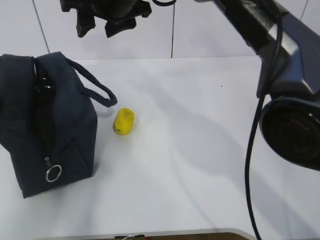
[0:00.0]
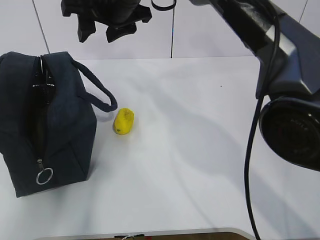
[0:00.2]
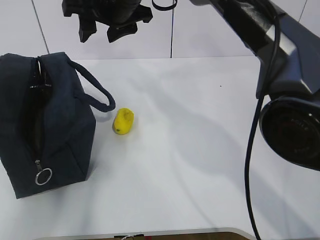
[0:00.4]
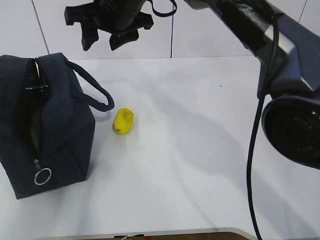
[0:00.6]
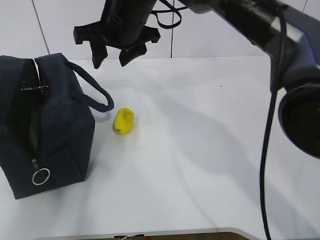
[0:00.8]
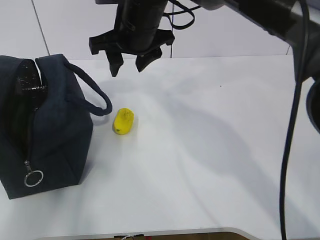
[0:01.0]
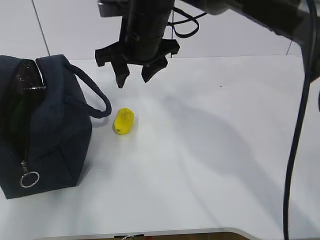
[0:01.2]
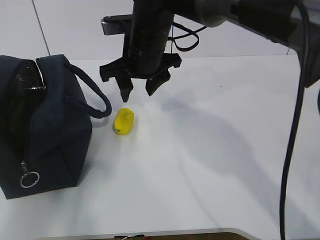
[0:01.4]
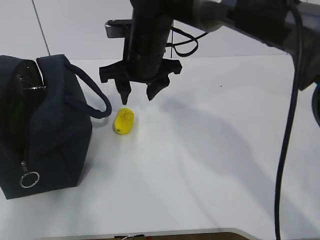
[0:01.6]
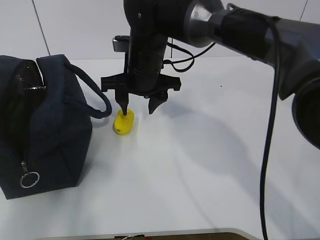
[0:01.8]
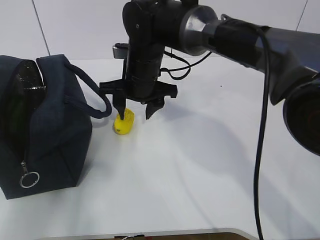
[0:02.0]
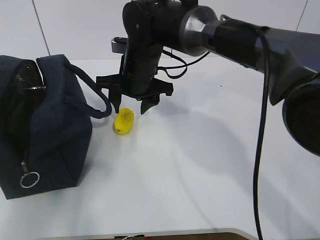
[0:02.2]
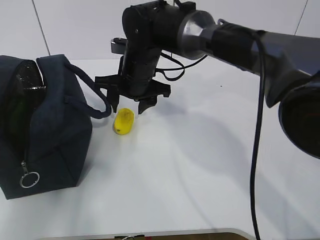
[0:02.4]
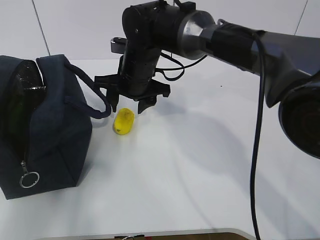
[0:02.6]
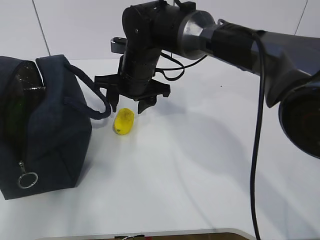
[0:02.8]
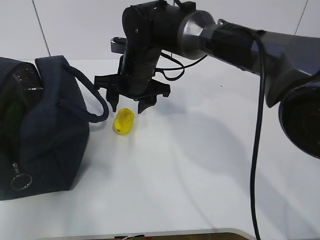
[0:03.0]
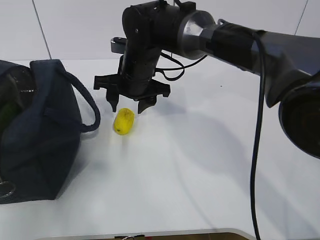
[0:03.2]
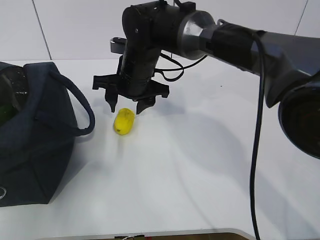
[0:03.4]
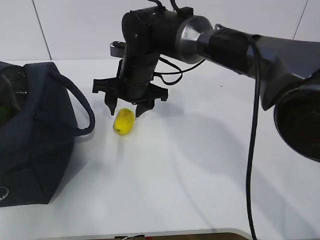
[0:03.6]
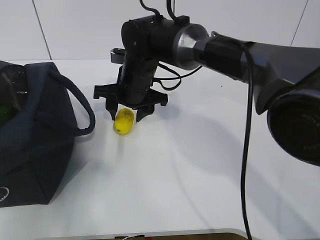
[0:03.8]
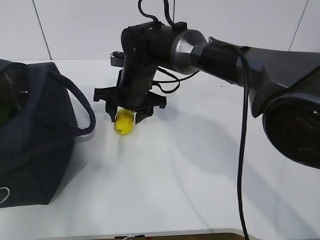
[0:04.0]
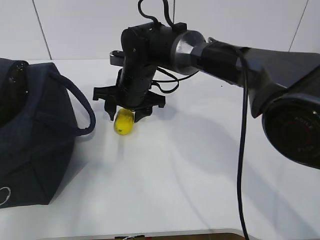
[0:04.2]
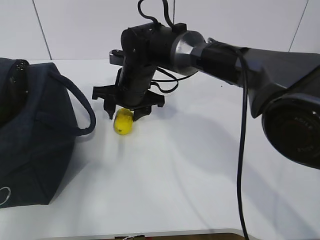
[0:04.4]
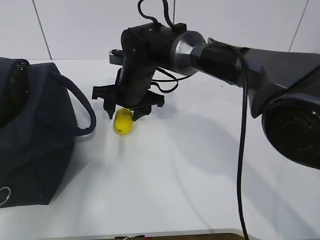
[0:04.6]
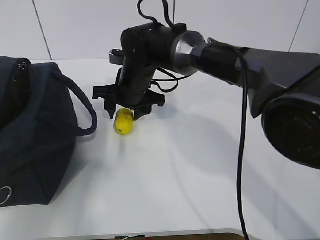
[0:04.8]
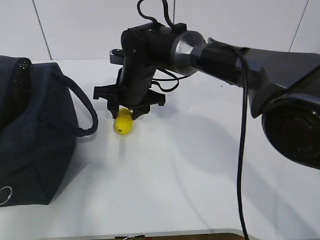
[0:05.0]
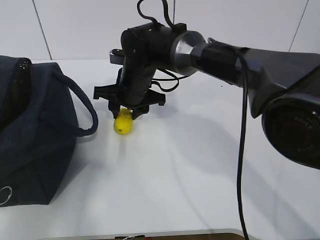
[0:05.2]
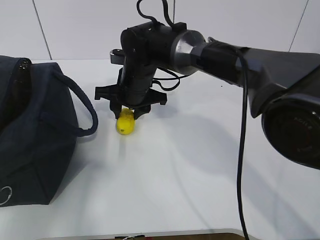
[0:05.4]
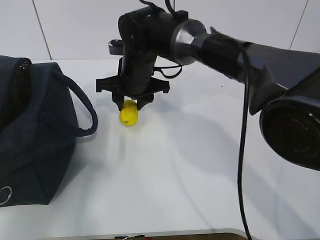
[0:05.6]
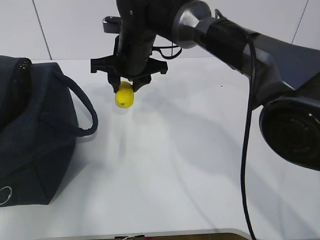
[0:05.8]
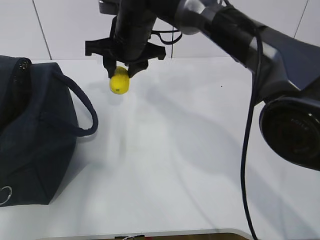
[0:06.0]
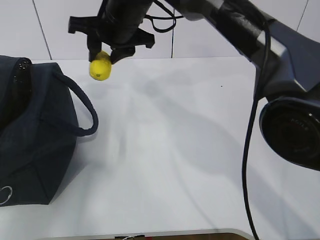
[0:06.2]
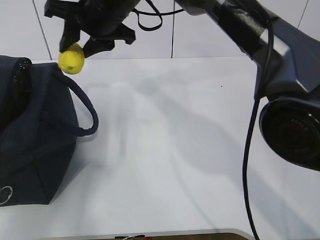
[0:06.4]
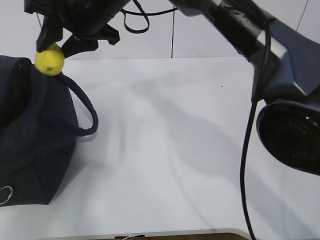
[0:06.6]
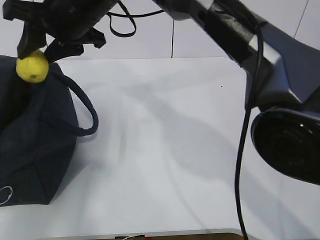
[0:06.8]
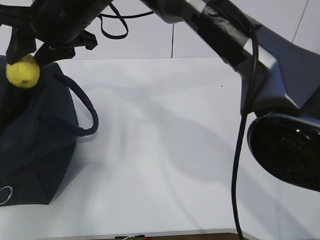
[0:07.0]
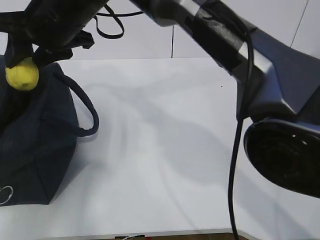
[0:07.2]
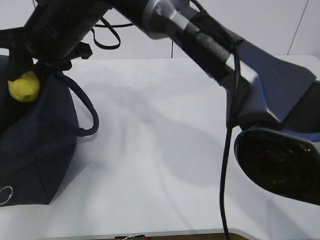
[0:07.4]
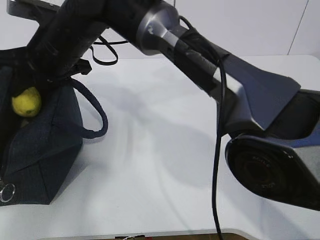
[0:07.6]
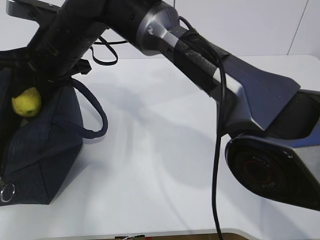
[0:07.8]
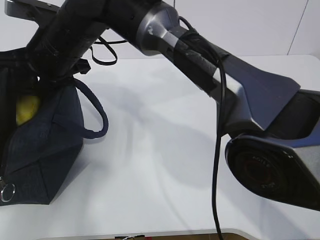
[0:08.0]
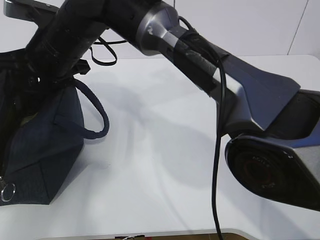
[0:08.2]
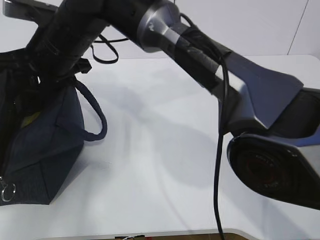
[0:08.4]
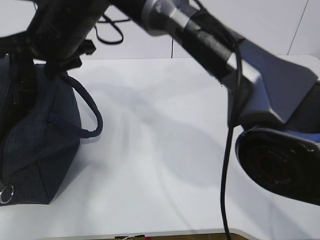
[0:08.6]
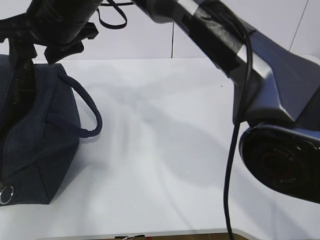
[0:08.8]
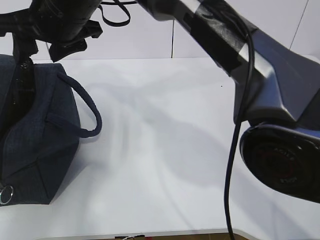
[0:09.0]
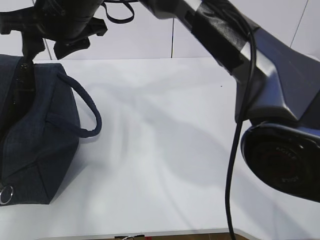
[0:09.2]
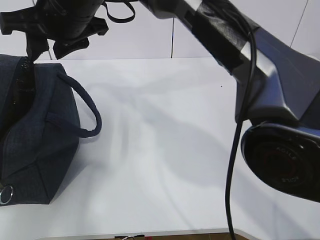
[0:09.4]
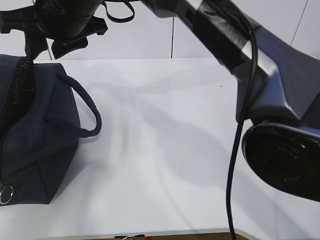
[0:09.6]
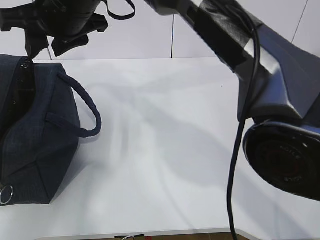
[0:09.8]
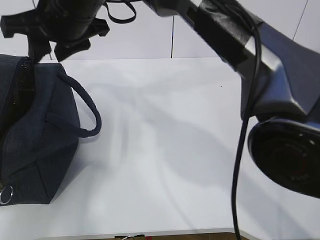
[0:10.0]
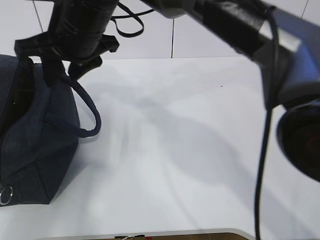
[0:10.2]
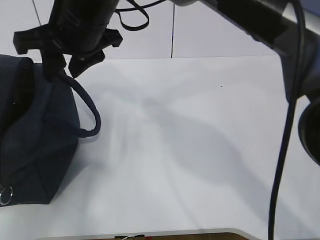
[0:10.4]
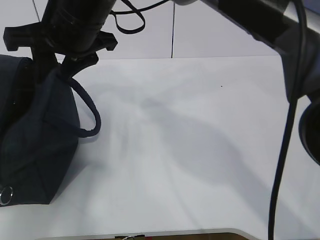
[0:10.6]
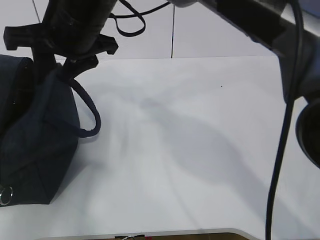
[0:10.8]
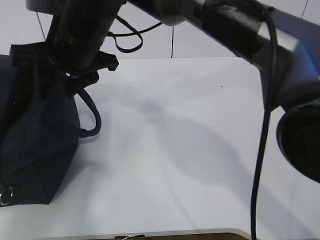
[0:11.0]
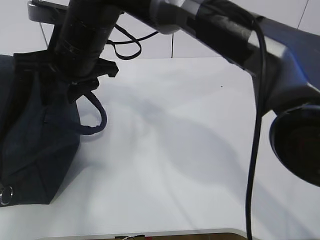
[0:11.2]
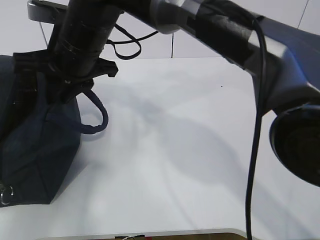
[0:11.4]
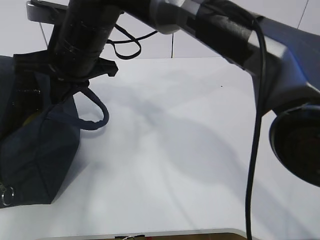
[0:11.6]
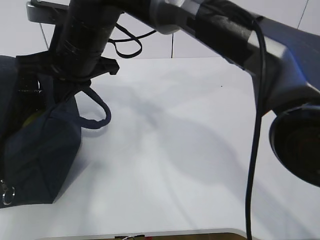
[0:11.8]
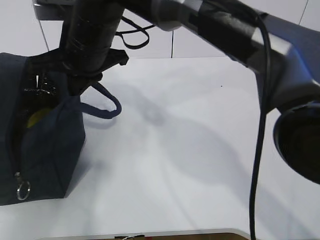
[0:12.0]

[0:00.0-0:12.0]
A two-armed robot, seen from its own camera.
Step, 0:00.0 to 0:01.8: Secure the lunch bag with your left hand.
Step, 0:02.2 to 0:04.8: Grab the lunch bag with your right hand.
Step, 0:05.0 to 0:08.6: Move the lunch bag to the right.
0:00.0 to 0:01.6: The right gripper shifts approximately 10 cm downward.
0:01.6 to 0:03.0: The right gripper moves some 5 cm.
0:04.4 to 0:06.0: The right gripper goes some 10 cm upward.
0:06.0 to 0:07.6: The right gripper is displaced to the left and backward by roughly 10 cm.
0:07.6 to 0:09.0: The right gripper is displaced upward by about 5 cm.
0:10.4 to 0:12.0: The right gripper closes up.

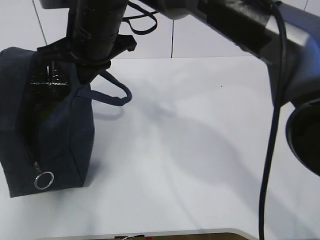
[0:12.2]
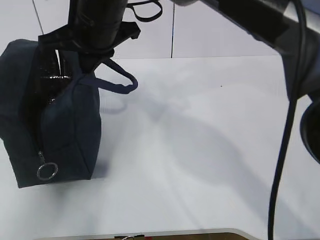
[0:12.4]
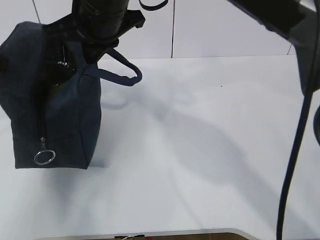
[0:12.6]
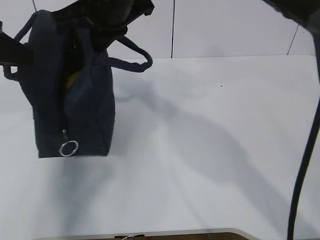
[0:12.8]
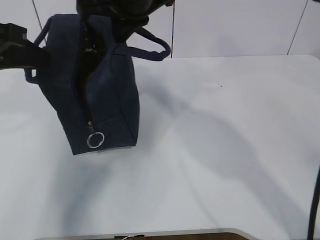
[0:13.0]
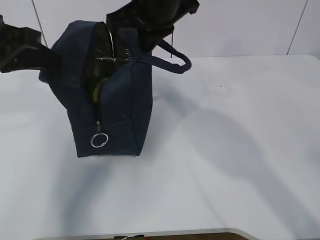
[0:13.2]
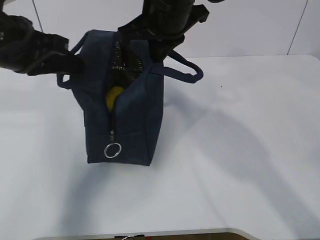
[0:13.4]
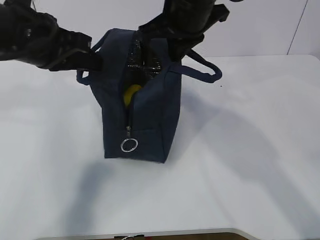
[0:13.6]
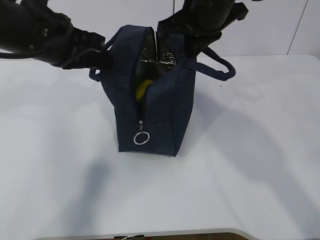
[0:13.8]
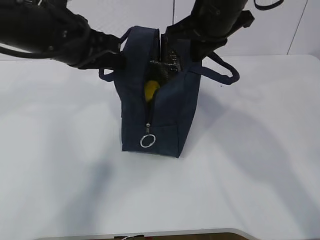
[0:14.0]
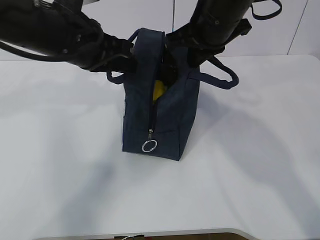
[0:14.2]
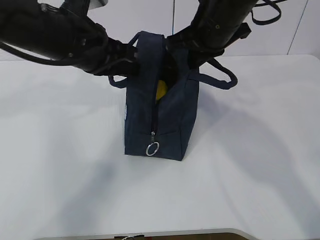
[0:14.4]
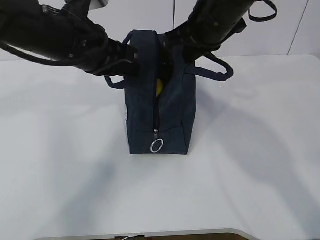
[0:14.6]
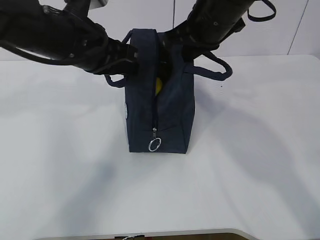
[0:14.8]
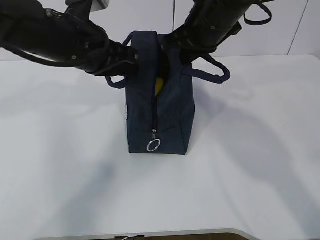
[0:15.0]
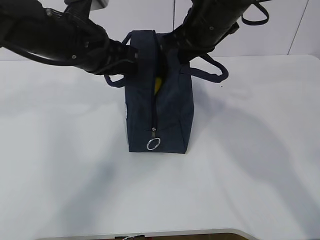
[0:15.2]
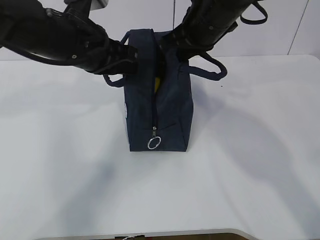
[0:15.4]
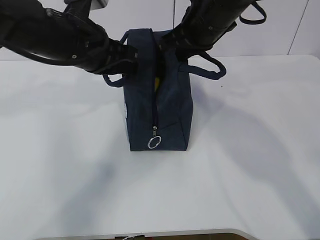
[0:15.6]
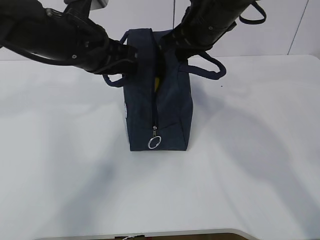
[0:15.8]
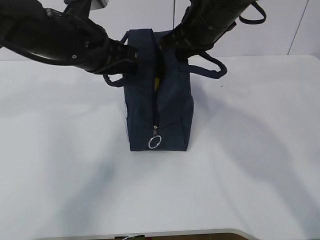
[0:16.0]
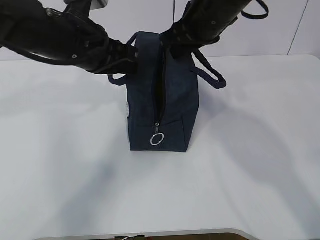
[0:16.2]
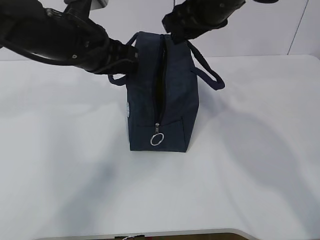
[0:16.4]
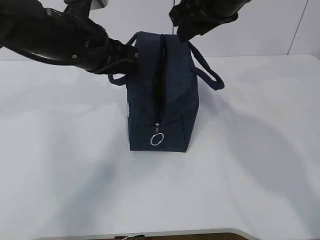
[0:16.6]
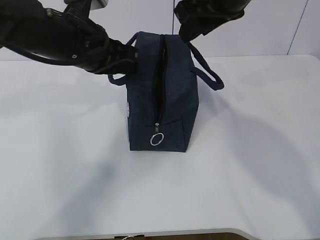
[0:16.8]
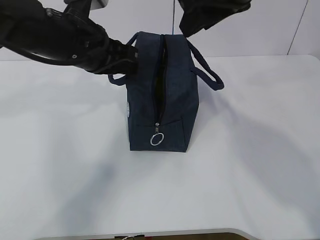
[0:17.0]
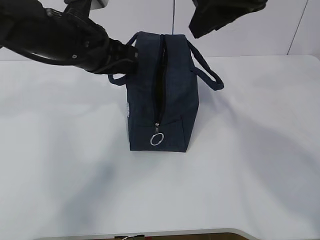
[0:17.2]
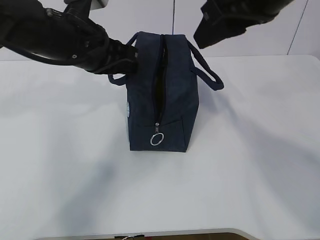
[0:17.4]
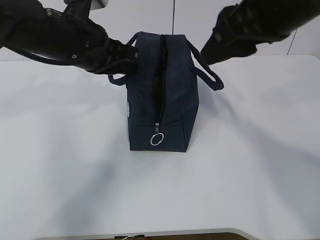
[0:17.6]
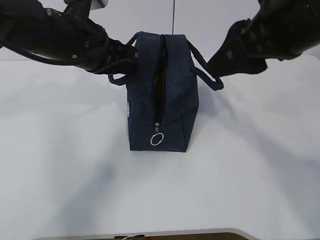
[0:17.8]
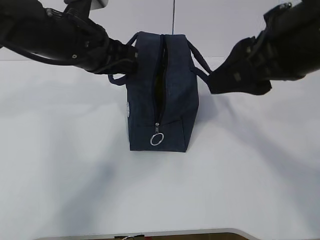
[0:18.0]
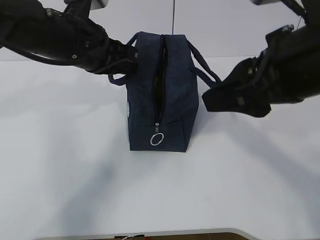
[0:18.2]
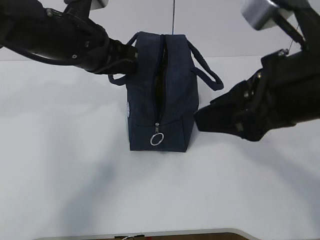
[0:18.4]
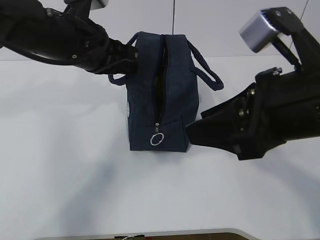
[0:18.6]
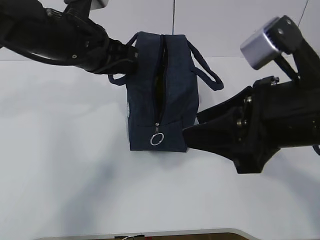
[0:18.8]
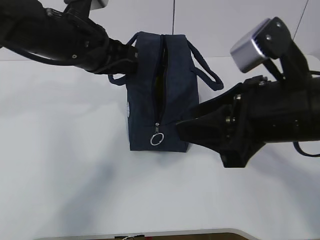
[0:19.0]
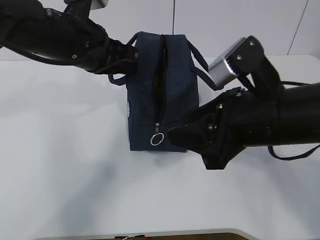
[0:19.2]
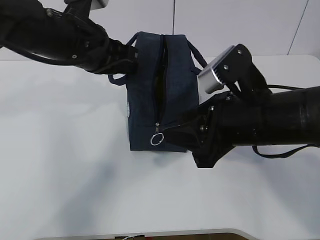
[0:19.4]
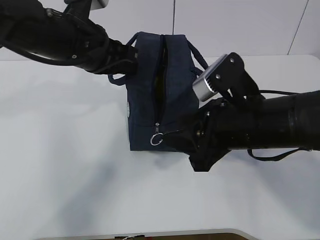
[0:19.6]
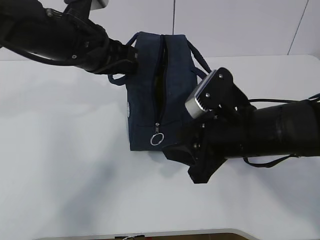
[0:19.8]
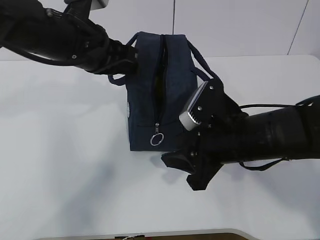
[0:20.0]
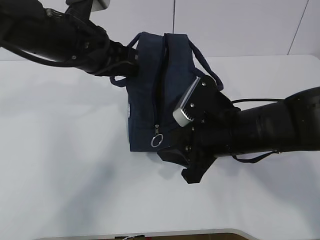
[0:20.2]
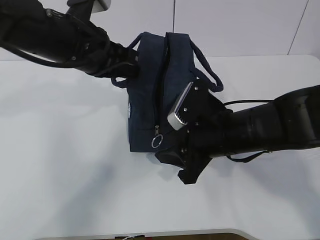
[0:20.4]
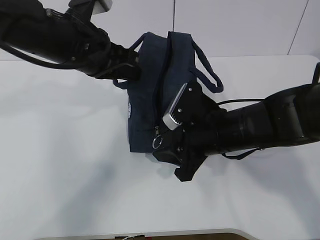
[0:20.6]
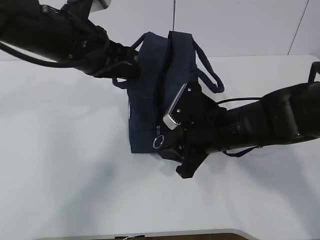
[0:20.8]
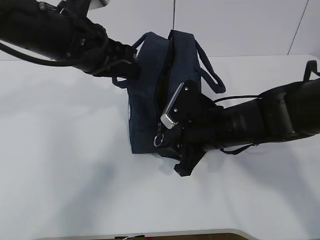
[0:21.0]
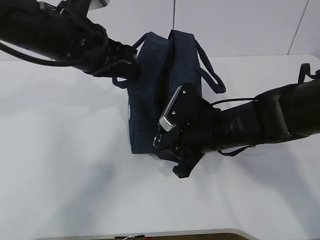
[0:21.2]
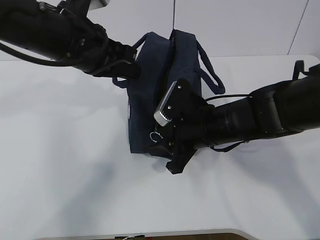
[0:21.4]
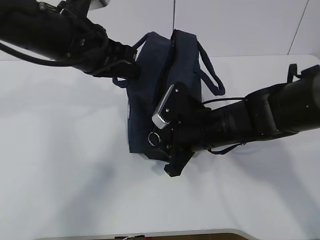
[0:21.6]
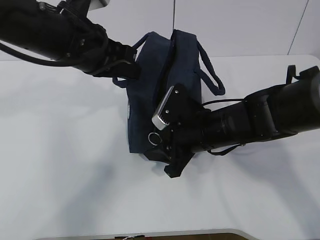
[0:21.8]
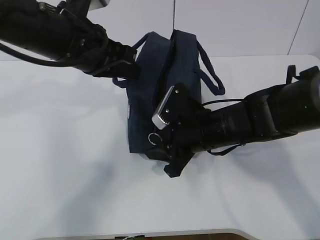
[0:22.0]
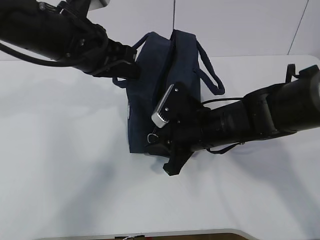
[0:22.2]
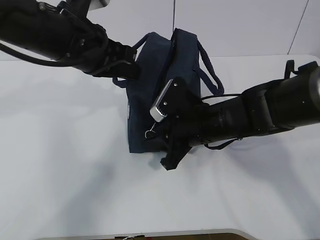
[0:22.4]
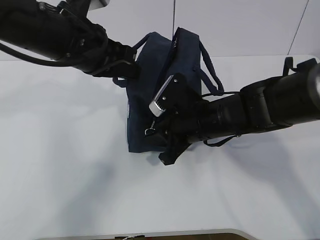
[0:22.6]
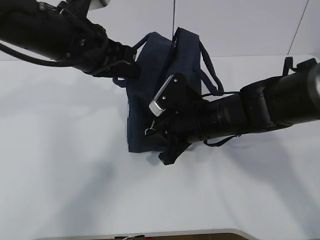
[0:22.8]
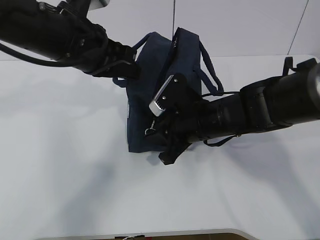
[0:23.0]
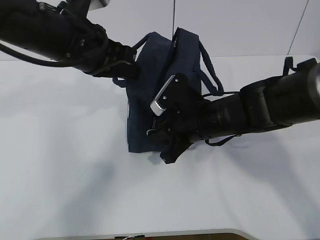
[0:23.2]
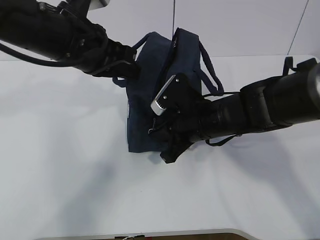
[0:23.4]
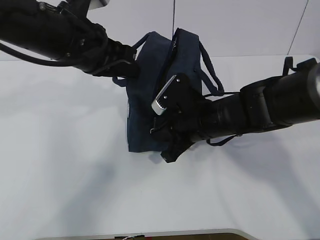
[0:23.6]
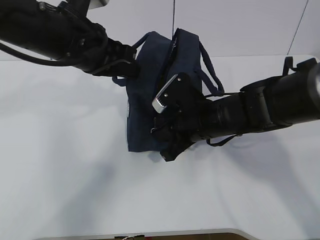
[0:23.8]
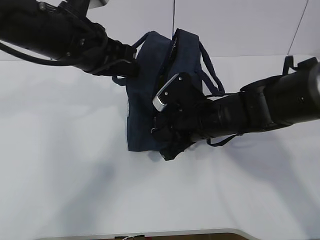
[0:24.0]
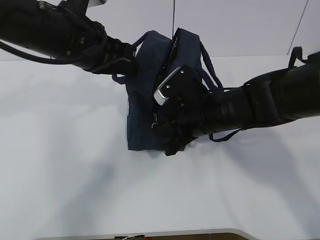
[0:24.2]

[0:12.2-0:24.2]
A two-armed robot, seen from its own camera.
0:12.2 to 0:13.8: The right gripper travels to the right by about 15 cm. Meanwhile the left gripper moves to the right and forward, about 15 cm.
0:13.8 to 0:15.2: The left gripper ends up roughly 5 cm from where it was.
0:15.2 to 0:16.6: The right gripper goes approximately 5 cm upward, and opens its fingers.
0:16.6 to 0:18.2: The right gripper goes roughly 15 cm backward.
0:18.2 to 0:19.8: The right gripper moves downward, roughly 15 cm.
0:19.8 to 0:21.2: The right gripper moves forward and downward, about 10 cm.
0:21.2 to 0:24.2: The grippers make only small movements.
